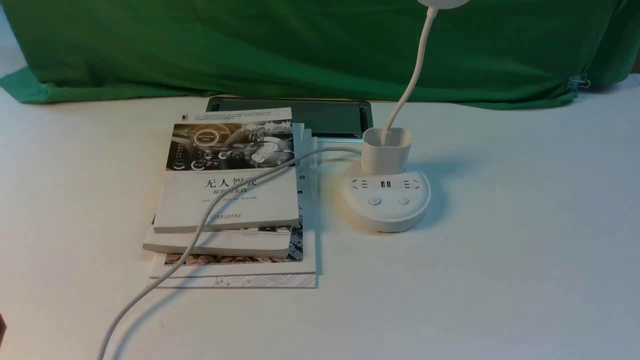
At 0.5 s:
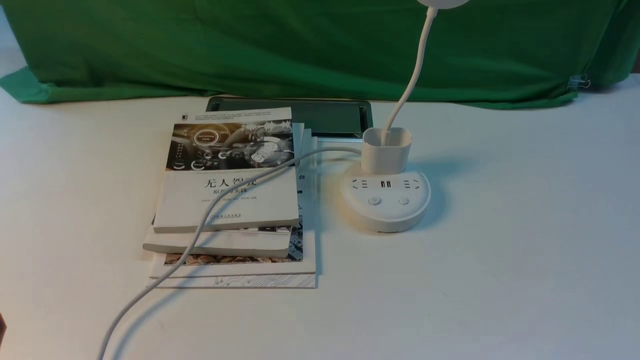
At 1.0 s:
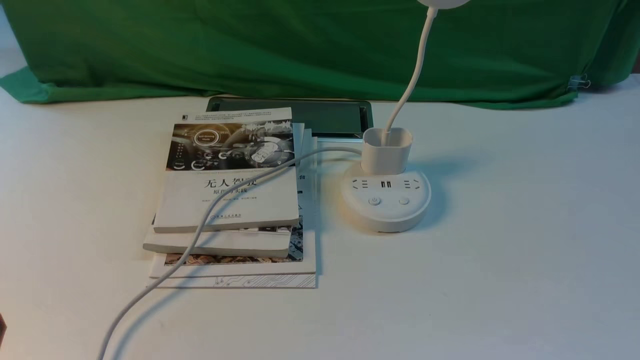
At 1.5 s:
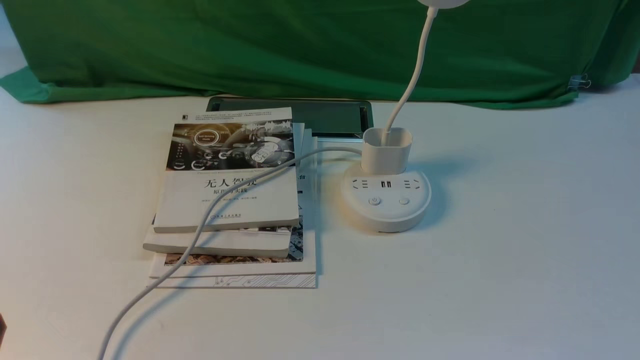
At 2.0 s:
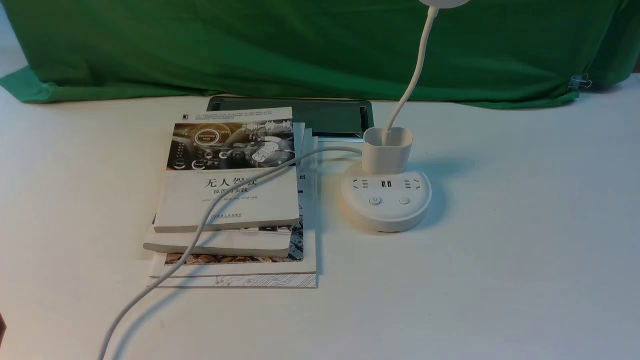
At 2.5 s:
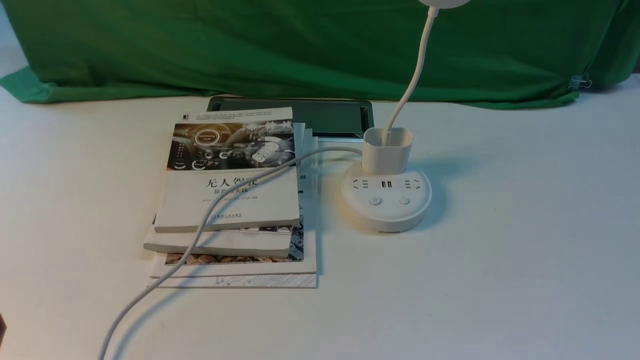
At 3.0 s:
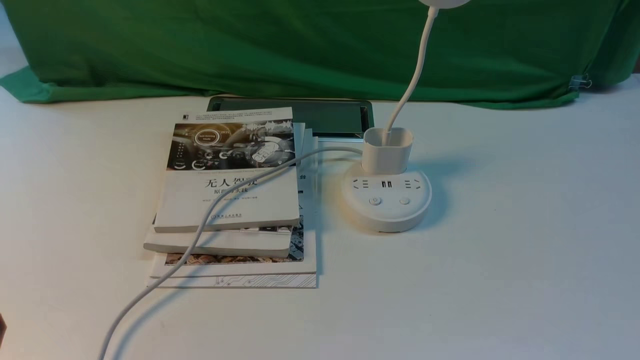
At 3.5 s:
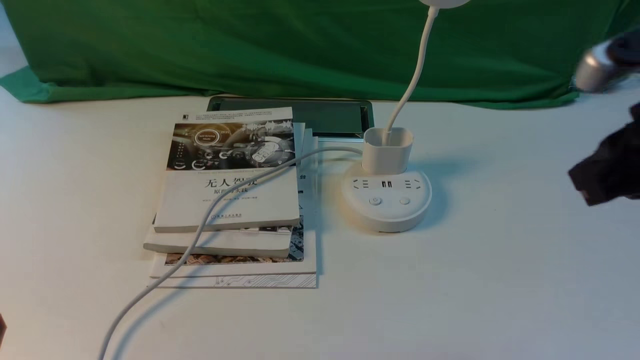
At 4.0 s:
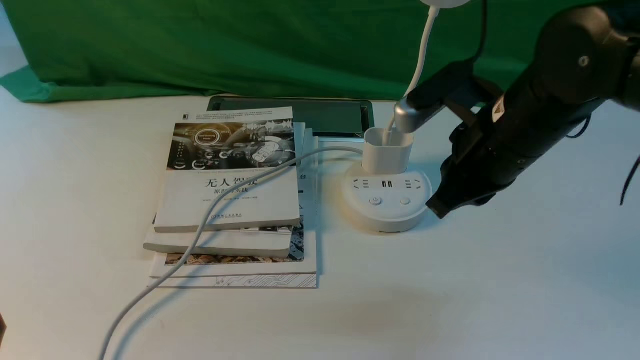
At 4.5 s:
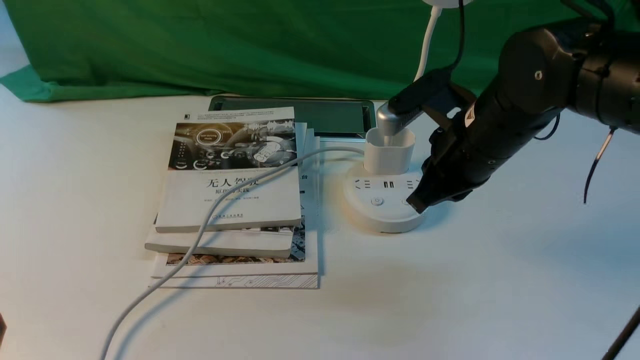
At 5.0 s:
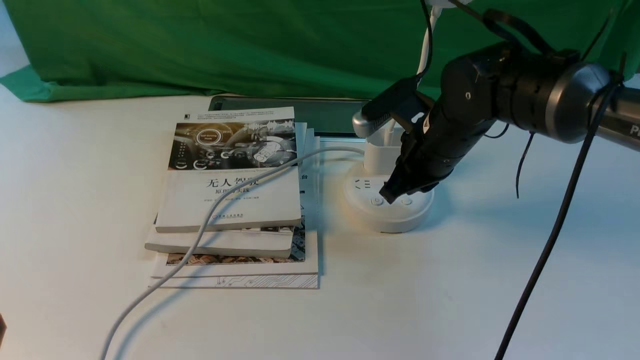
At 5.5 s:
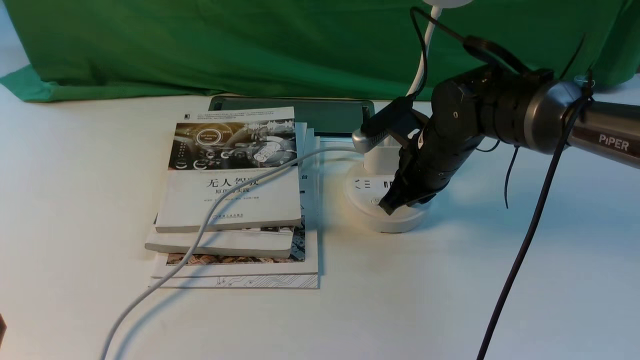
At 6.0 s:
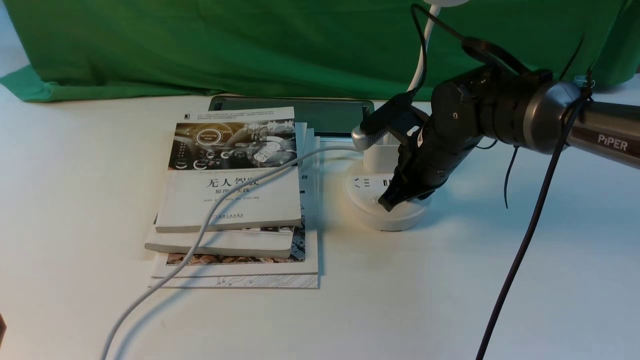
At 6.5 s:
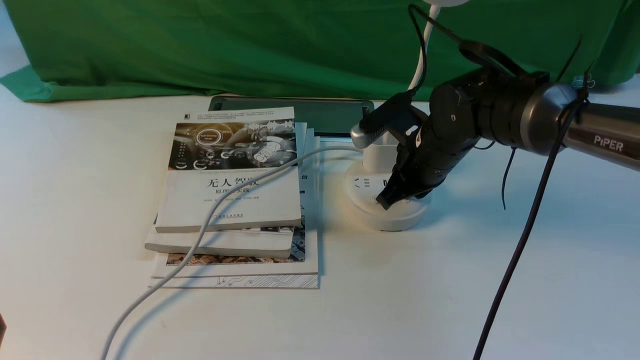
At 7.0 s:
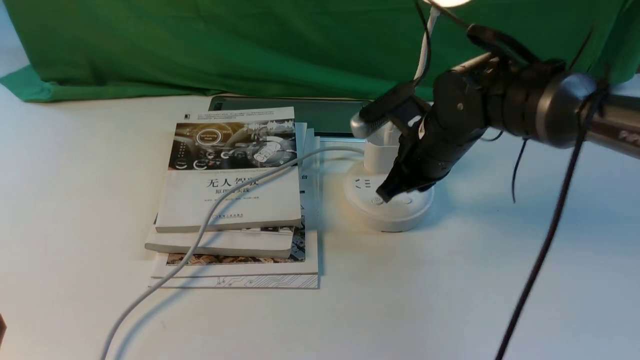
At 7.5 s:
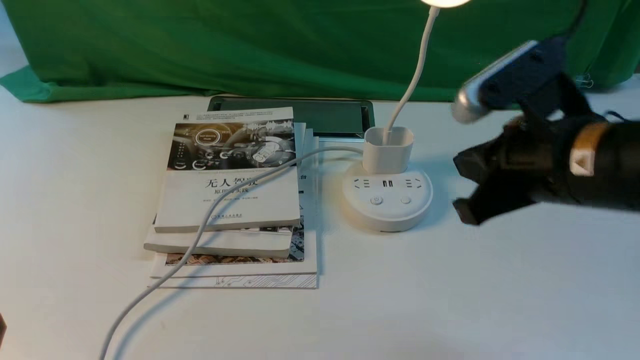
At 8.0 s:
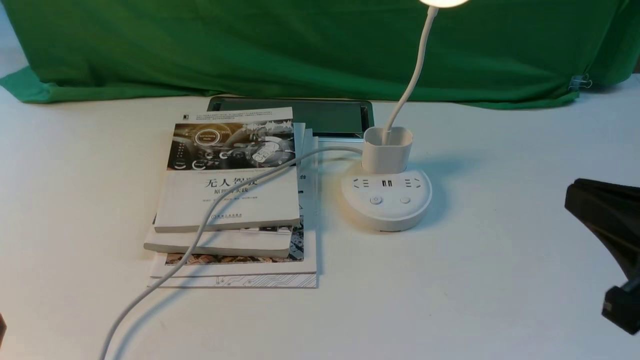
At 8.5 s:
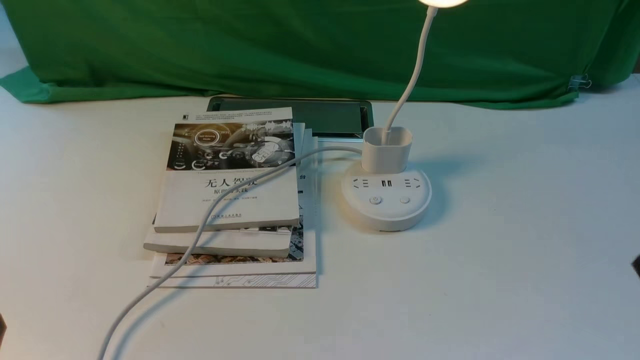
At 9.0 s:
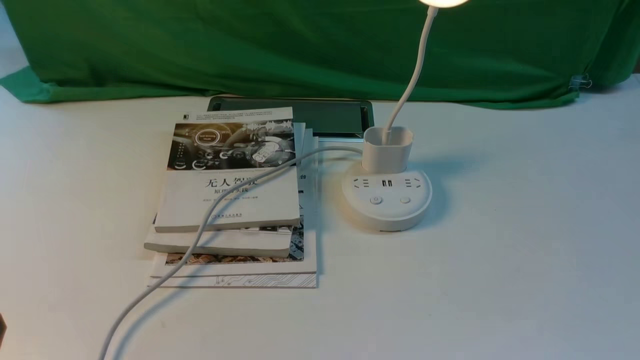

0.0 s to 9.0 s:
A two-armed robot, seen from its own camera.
Step, 0.0 to 7.0 s: use the right arm to press the button switch on the lamp holder.
2.0 to 4.5 s: The right gripper goes about 35 cm forward and to the left, and closes up.
4.5 to 7.0 s: The right gripper travels downward and back again, approximately 10 cm each way.
7.0 to 9.0 s: The right gripper is displaced backward and to the right by approximately 40 cm, and opens its fingers.

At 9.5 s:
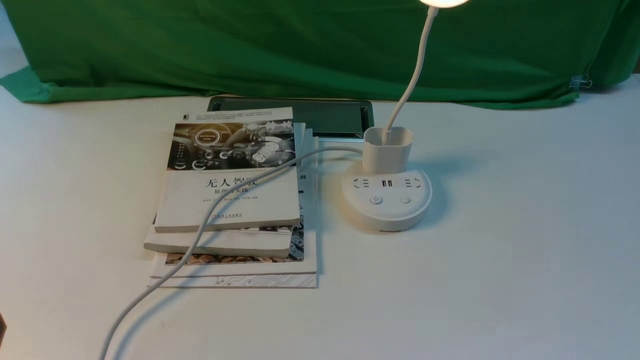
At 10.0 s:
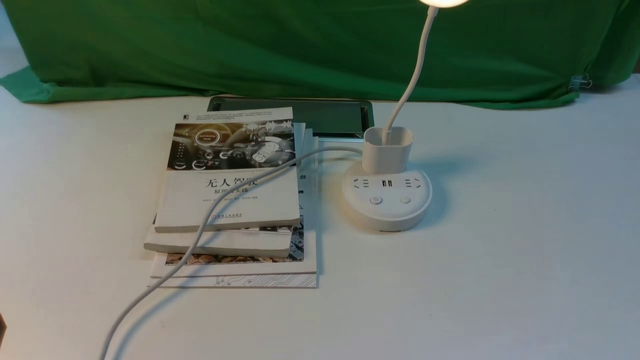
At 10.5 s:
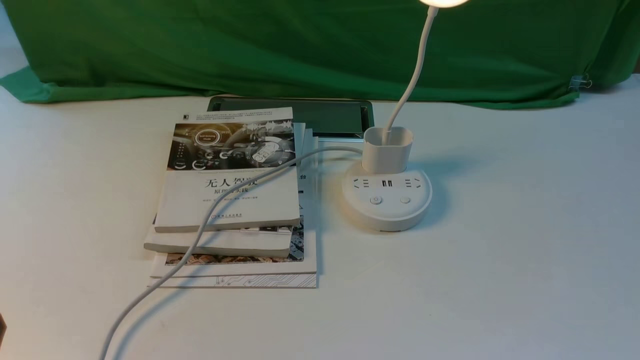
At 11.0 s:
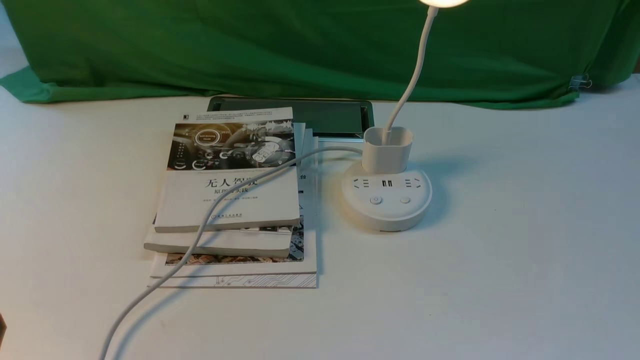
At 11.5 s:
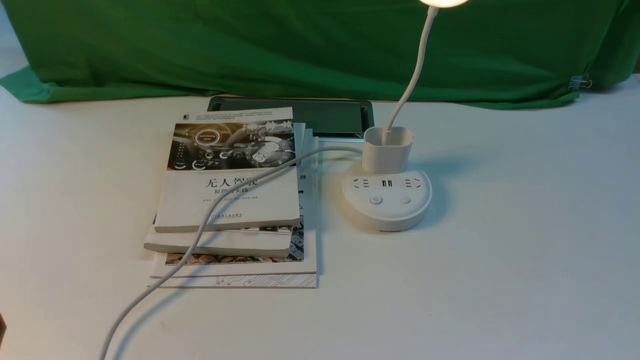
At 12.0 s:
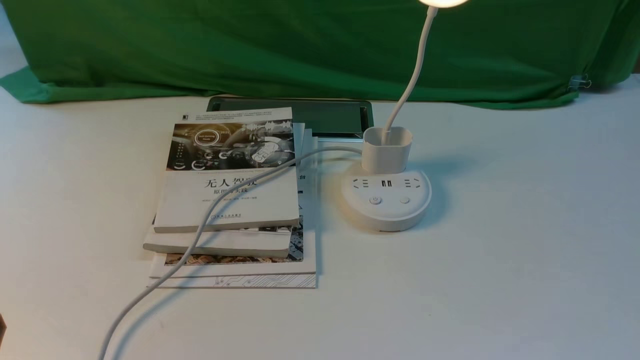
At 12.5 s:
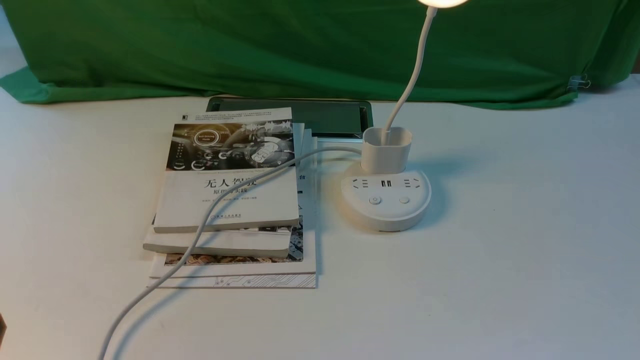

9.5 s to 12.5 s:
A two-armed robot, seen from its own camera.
9.5 to 12.5 s: Both grippers stay about where they are.
